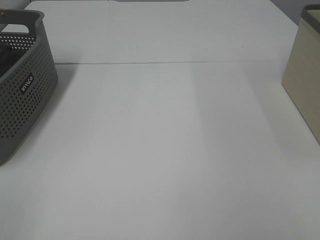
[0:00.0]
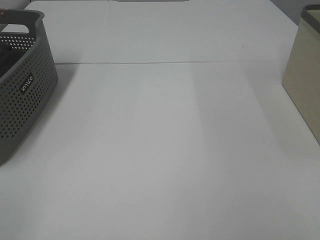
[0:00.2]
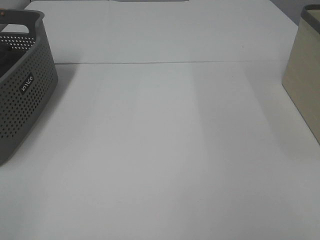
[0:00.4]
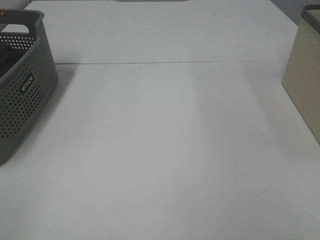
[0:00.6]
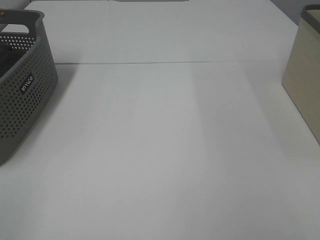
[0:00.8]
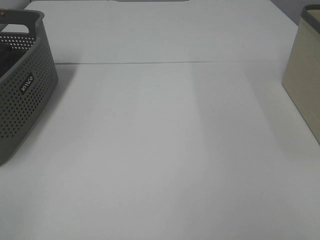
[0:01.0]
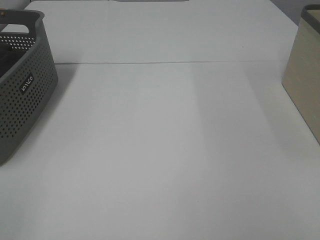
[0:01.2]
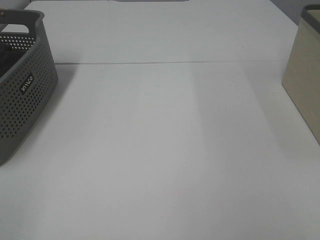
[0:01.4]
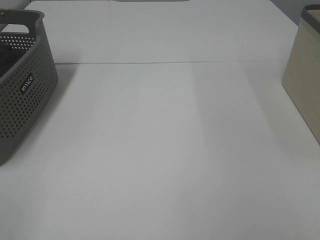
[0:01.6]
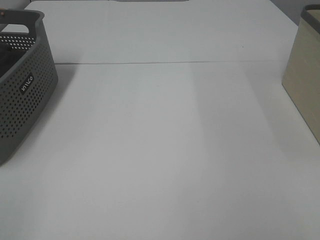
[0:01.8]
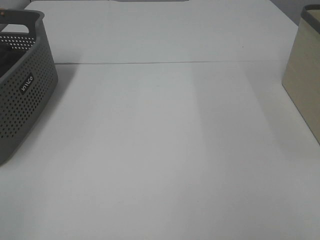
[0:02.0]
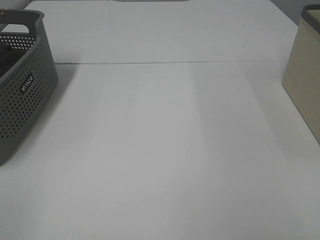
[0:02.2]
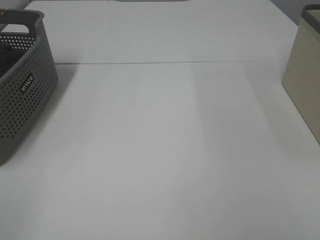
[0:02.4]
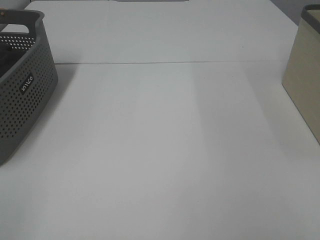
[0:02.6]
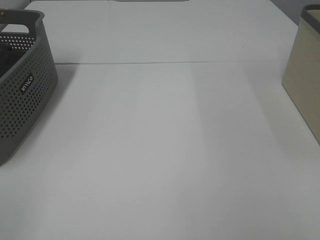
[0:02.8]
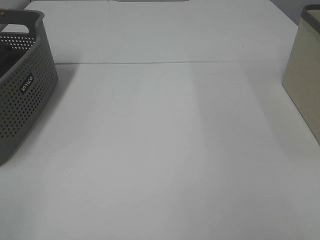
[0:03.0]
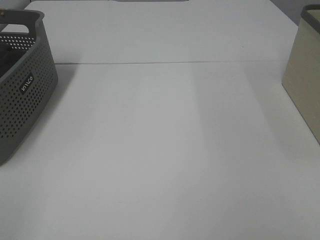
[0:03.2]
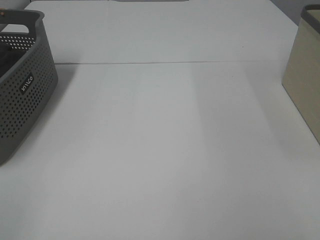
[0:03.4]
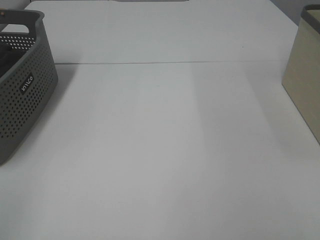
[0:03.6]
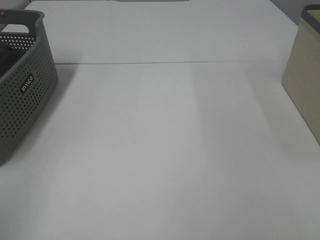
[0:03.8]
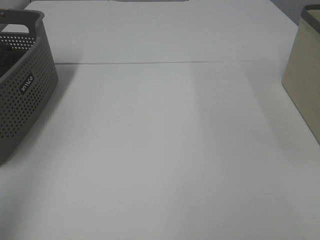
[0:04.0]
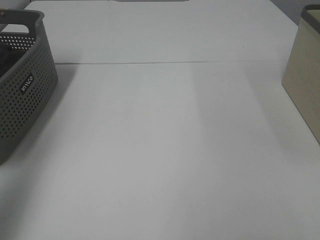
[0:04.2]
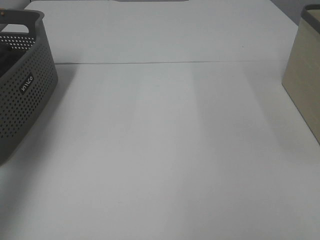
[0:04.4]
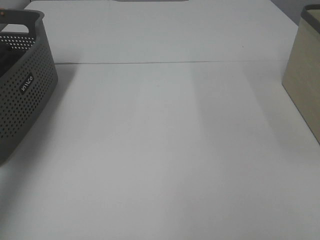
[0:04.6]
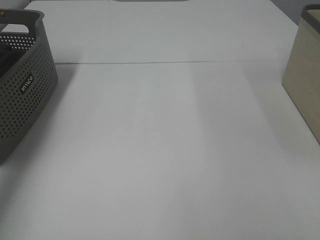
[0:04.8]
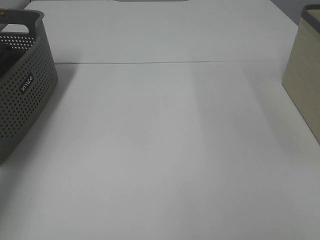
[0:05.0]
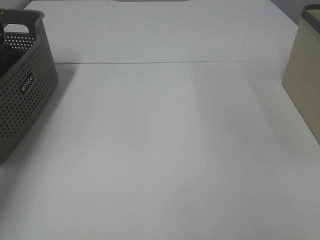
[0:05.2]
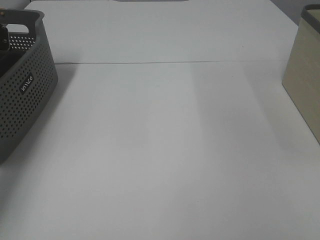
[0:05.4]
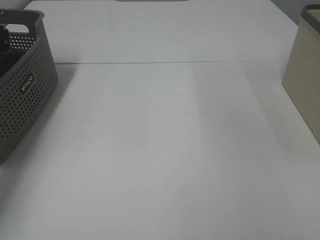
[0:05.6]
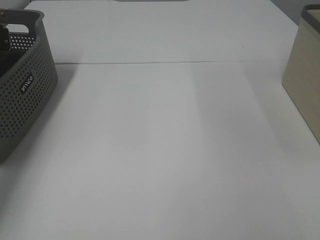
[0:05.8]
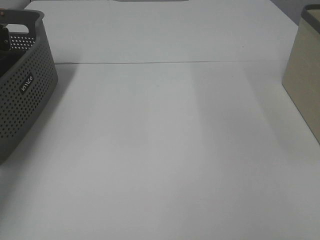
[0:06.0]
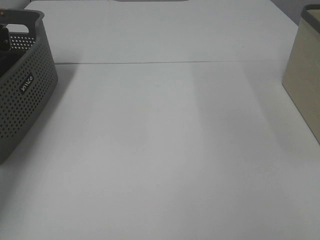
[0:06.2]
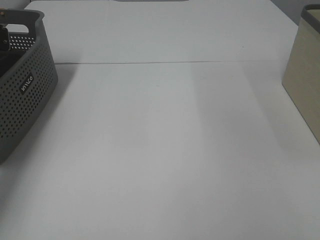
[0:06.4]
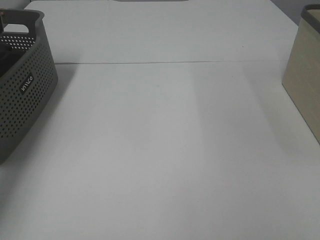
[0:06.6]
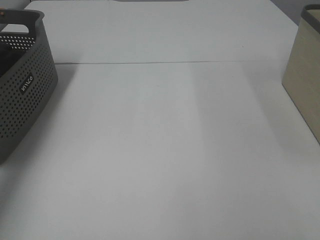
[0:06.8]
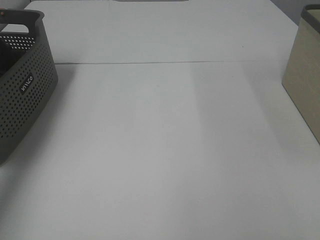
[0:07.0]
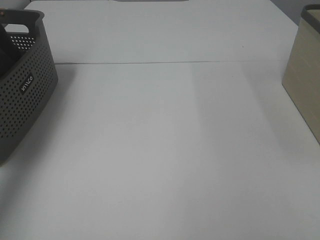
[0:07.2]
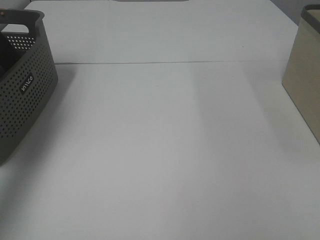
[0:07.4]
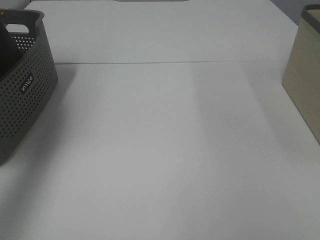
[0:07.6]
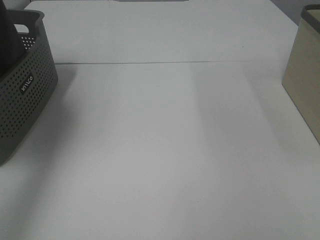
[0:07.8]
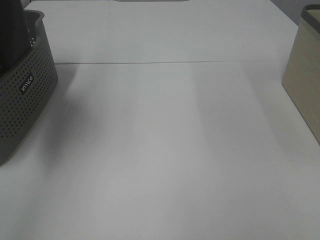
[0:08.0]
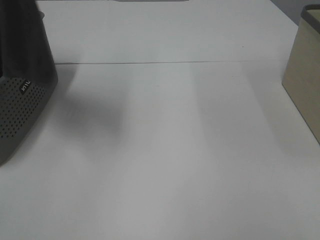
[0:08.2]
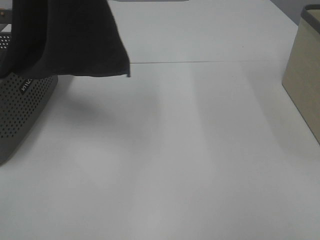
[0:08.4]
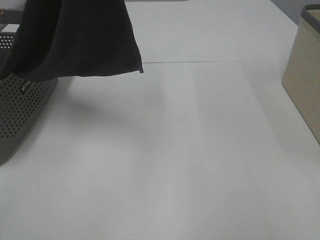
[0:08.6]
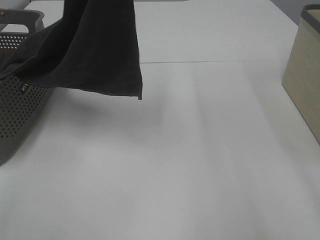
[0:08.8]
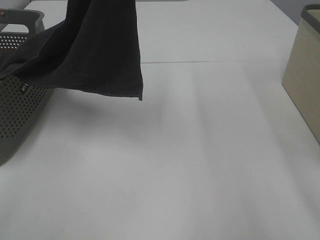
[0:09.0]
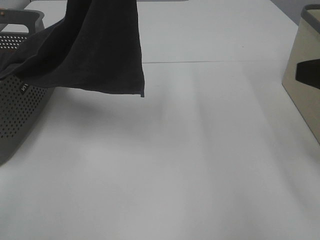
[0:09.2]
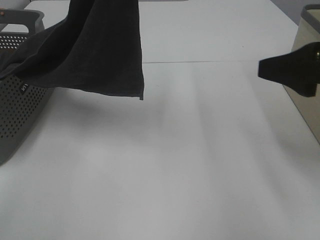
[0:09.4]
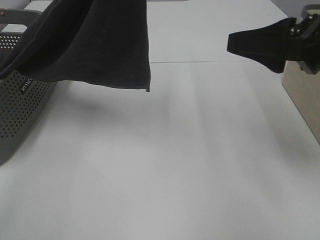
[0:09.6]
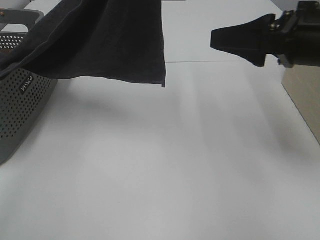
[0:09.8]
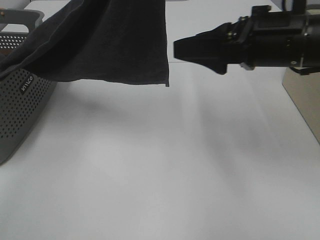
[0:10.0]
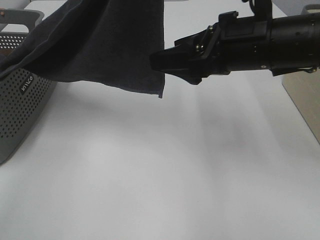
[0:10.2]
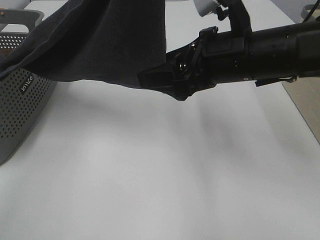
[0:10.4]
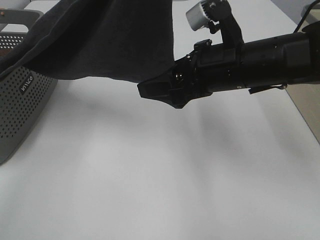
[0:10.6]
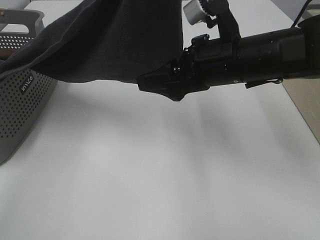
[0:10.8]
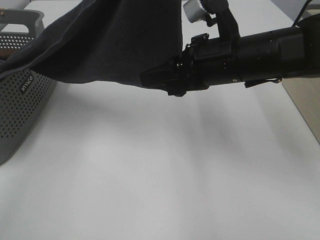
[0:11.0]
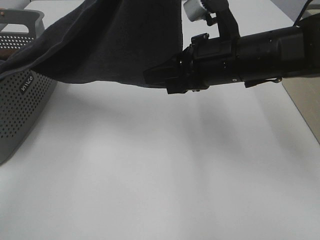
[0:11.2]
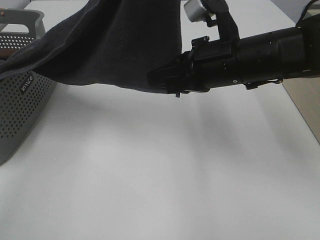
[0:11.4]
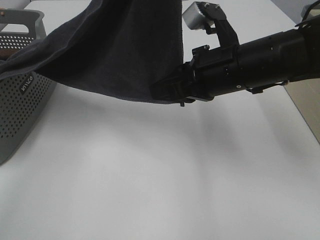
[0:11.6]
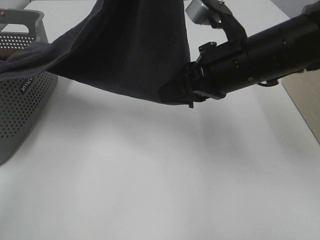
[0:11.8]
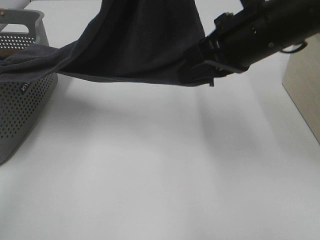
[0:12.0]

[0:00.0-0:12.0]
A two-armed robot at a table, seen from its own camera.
Task of the whole recording: Remove the towel and place it.
Step, 0:08.0 to 0:10.8: Right hand: grab a corner of the grey towel and straighten it.
0:00.0 to 0:03.0: Both grippers stay put.
0:03.0 to 0:04.4: The left gripper travels forward by approximately 30 cm.
0:04.4 to 0:06.0: The left gripper goes some 25 cm downward and forward, and closes its fingers.
0:06.0 to 0:07.6: The left gripper is displaced upward and backward by about 30 cm.
0:07.6 to 0:09.0: The right gripper moves forward, roughly 15 cm. Meanwhile the left gripper is displaced to the right by some 20 cm.
0:09.0 to 0:10.4: The right gripper heads forward, to the left and downward, covering roughly 20 cm.
0:10.4 to 0:12.0: The right gripper shifts about 5 cm upward, and closes its fingers.

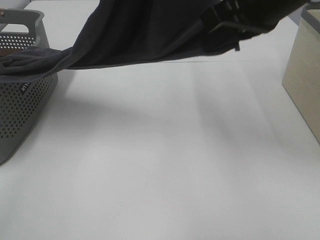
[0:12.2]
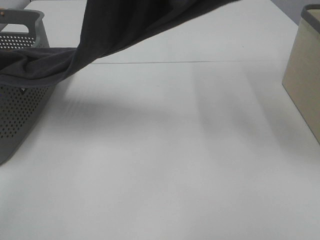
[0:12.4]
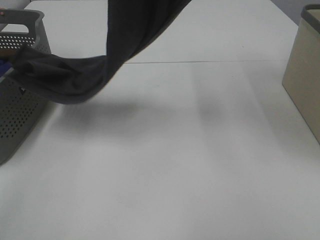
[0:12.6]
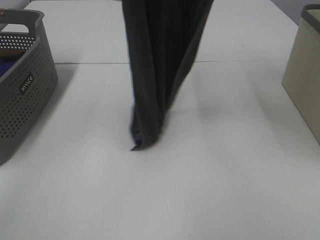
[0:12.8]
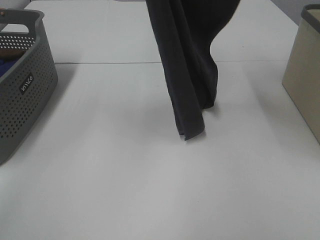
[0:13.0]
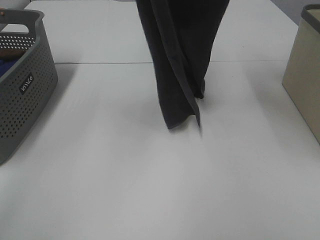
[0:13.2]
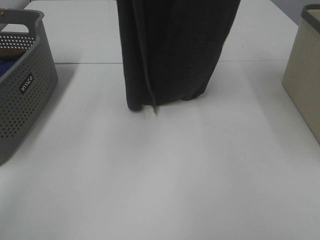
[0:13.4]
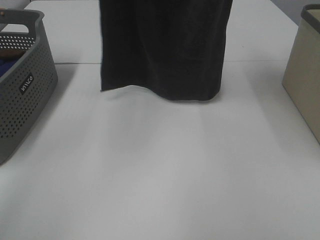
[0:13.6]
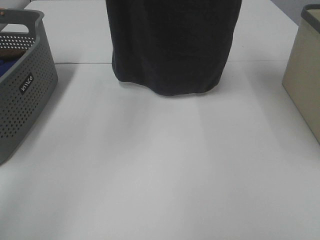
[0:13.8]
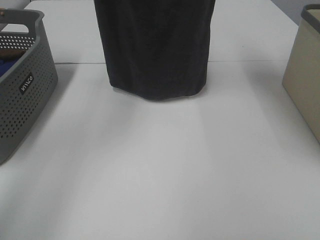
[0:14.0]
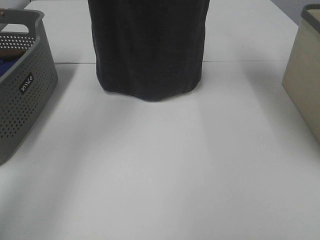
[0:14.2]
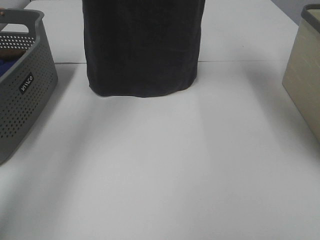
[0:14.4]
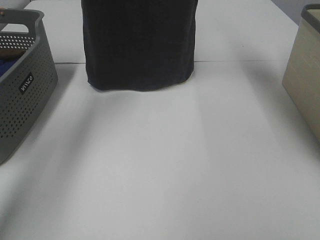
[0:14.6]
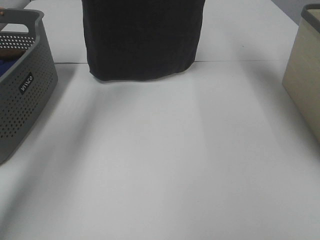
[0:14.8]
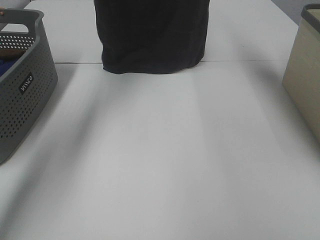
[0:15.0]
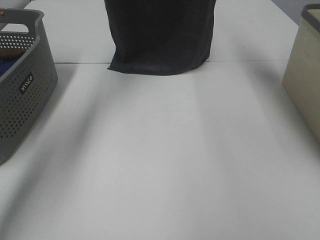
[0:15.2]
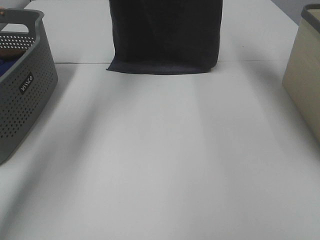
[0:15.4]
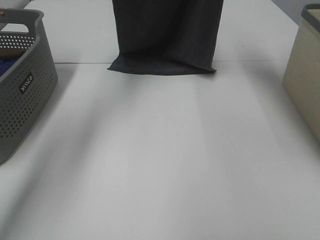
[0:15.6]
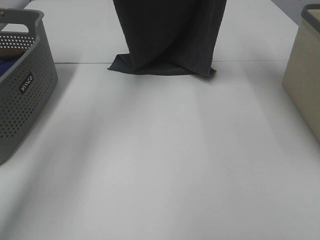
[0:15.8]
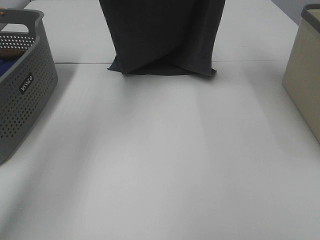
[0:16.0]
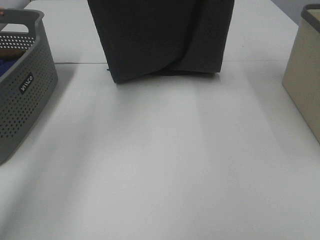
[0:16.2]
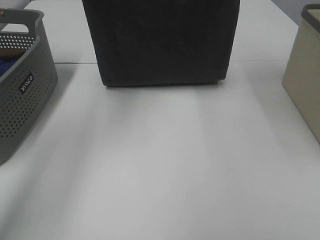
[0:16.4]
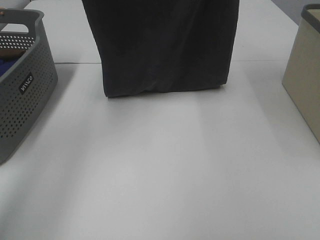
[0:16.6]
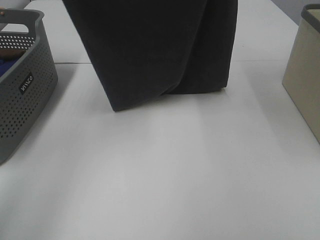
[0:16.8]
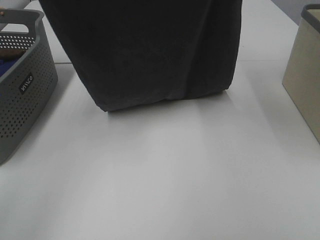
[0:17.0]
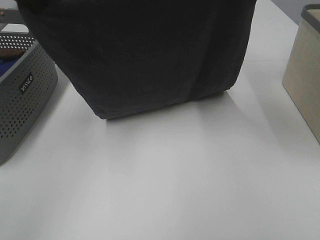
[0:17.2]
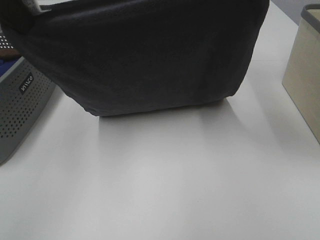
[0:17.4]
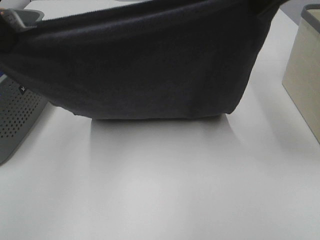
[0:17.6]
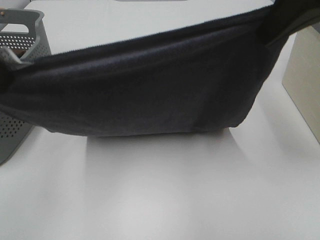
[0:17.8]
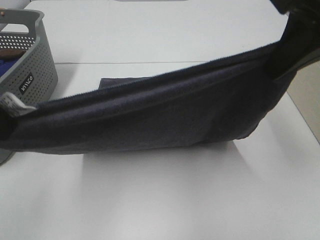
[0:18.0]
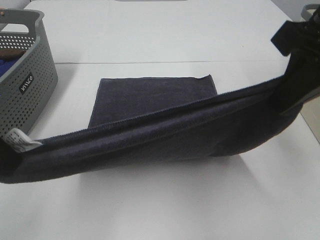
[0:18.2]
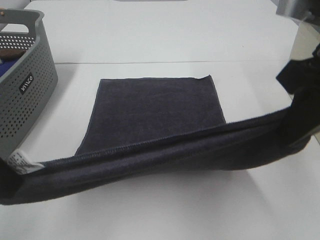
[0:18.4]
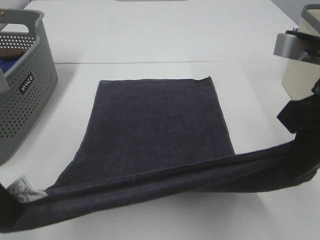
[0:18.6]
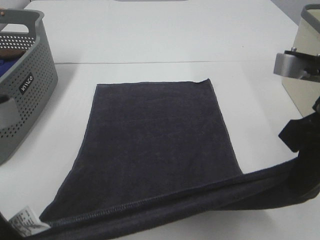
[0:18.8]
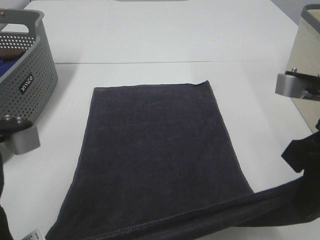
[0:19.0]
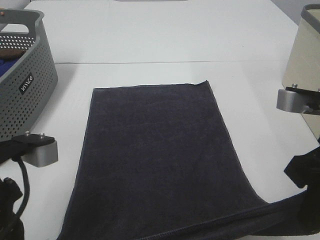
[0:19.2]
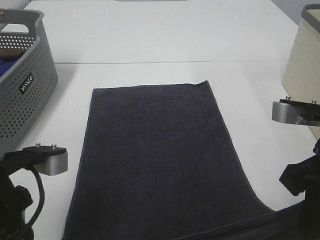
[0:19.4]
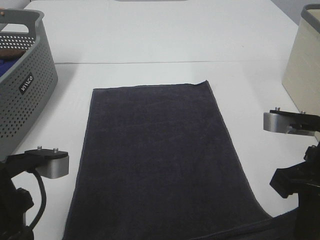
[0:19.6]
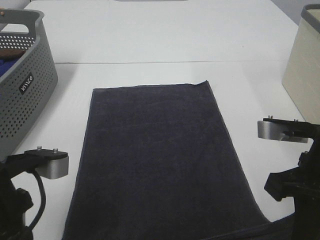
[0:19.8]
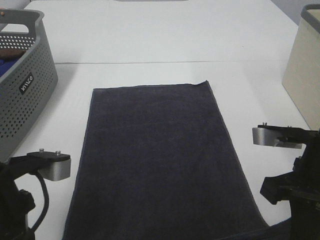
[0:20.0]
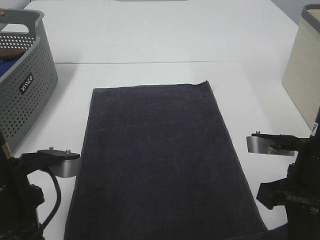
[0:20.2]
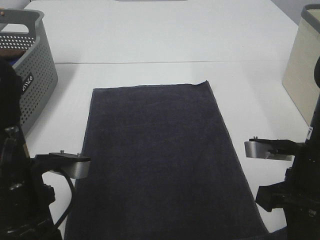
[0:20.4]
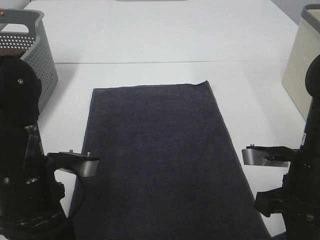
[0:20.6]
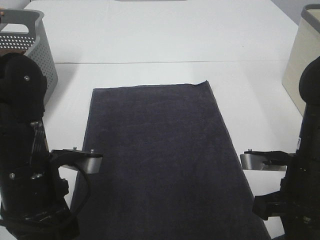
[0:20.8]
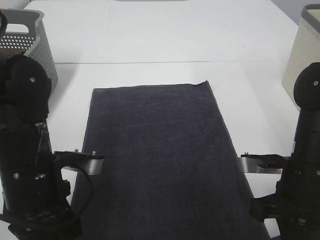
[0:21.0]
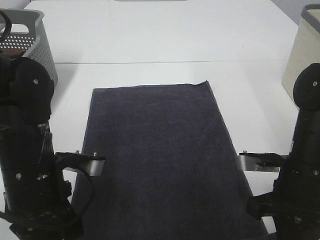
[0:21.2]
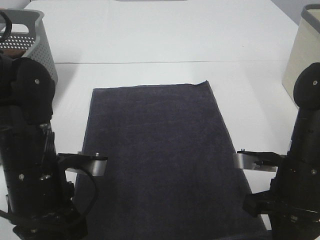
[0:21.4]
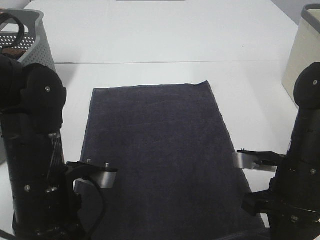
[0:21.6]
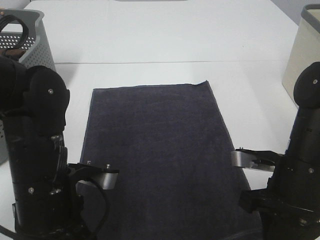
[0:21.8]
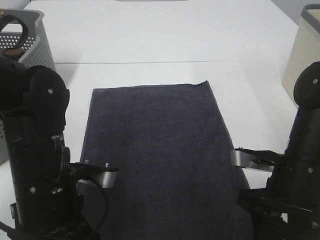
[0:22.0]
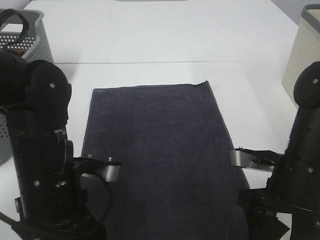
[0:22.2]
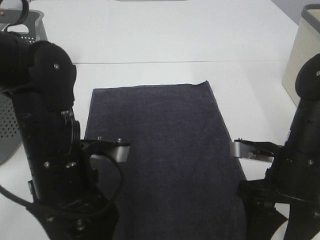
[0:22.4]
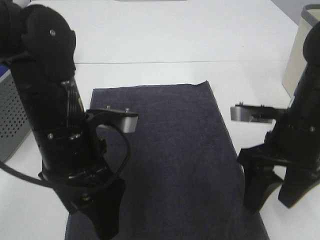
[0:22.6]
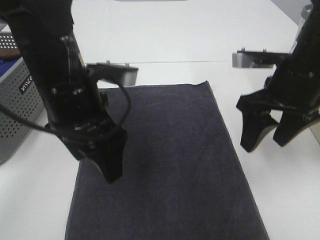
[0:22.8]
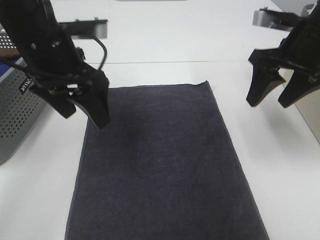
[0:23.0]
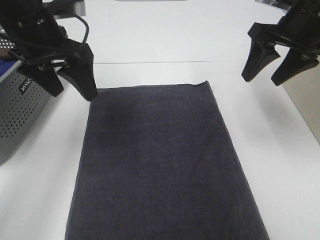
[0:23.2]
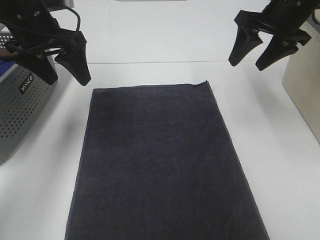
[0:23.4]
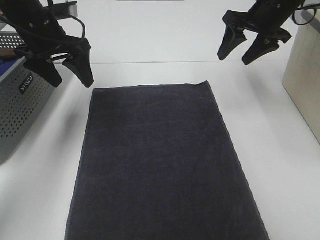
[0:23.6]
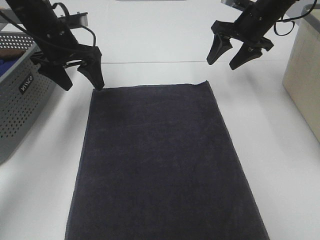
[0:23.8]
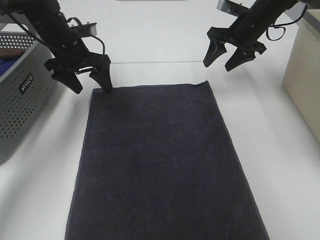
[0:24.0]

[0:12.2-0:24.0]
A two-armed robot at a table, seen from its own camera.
Task of the whole recording: Remove the towel and place it.
Step, 0:12.2 to 0:17.6: Left hand: spread the grey towel flat on the table.
Step, 0:12.2 to 0:17.6: Right hand: spread the grey towel flat on the table.
0:12.2 to 0:13.6: The left gripper goes about 5 cm forward; the right gripper goes about 20 cm upward.
0:13.6 to 0:15.2: The right gripper shifts roughly 15 cm forward; the left gripper moves forward and downward, roughly 20 cm.
0:15.2 to 0:16.6: Both grippers travel together backward, roughly 10 cm.
0:16.6 to 0:18.2: Both grippers travel together backward and downward, about 25 cm.
0:18.2 to 0:19.6: The two grippers go some 10 cm downward.
0:19.6 to 0:21.0: The left gripper heads forward, covering about 5 cm; the right gripper goes some 10 cm downward.
0:21.0 to 0:22.6: The left gripper ends up approximately 5 cm from where it was, and opens its fingers; the right gripper ends up approximately 5 cm from where it was, and opens.
0:22.6 to 0:24.0: The grippers both shift forward by some 30 cm.
